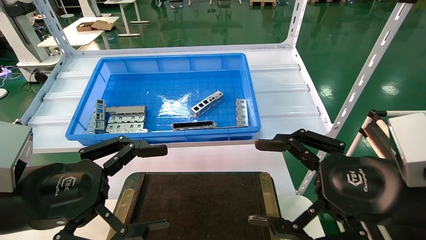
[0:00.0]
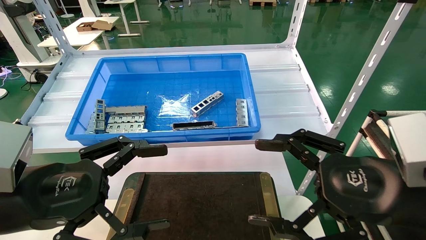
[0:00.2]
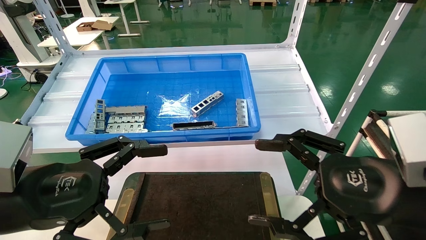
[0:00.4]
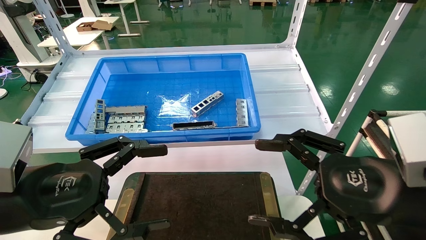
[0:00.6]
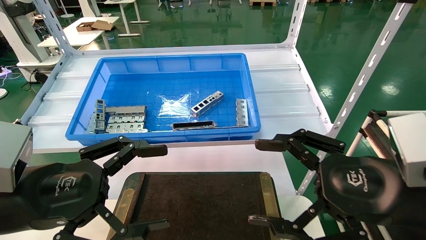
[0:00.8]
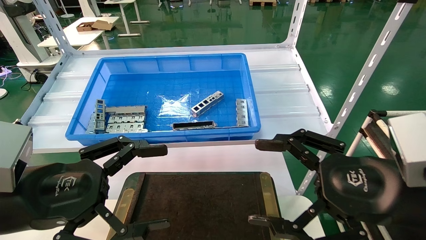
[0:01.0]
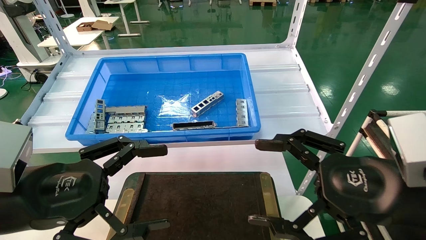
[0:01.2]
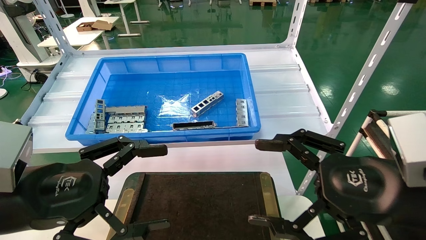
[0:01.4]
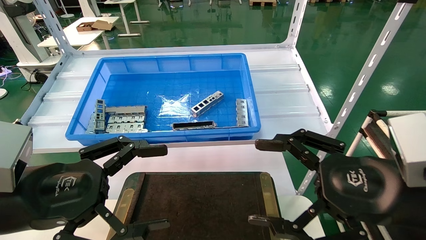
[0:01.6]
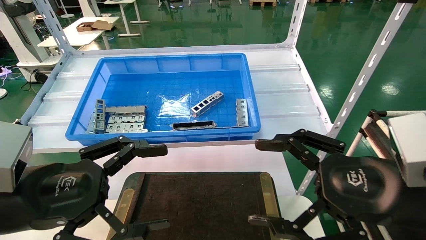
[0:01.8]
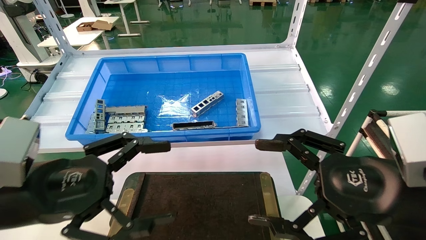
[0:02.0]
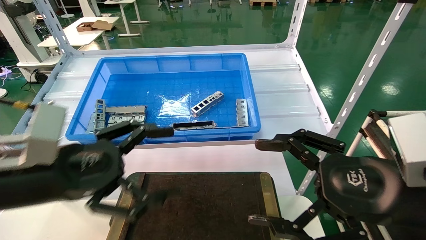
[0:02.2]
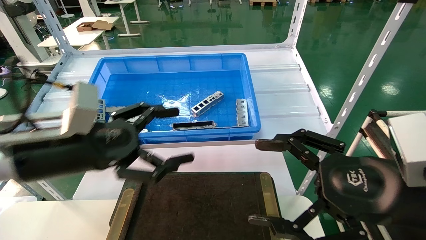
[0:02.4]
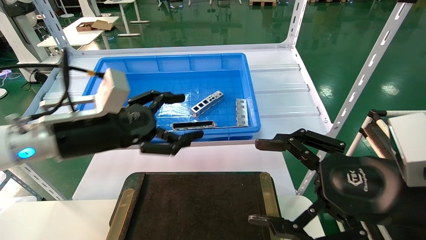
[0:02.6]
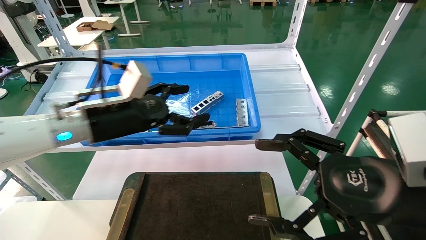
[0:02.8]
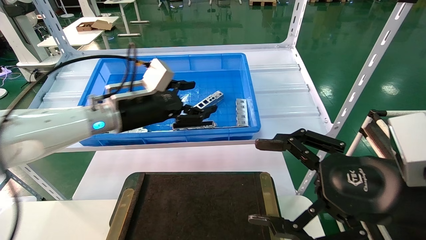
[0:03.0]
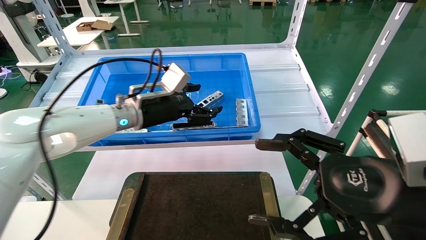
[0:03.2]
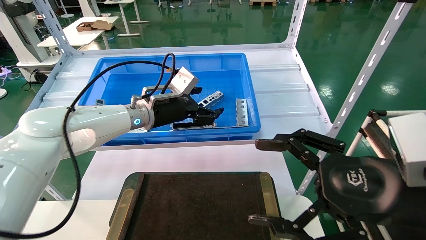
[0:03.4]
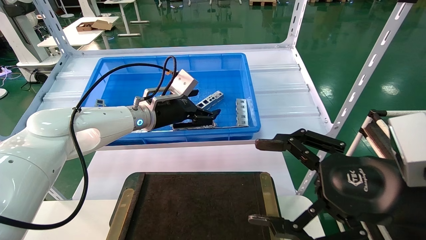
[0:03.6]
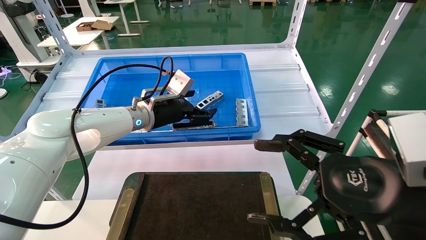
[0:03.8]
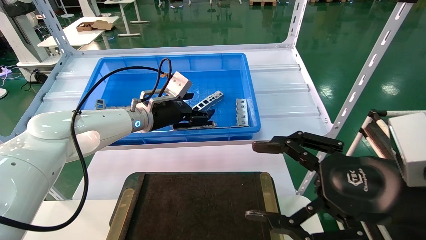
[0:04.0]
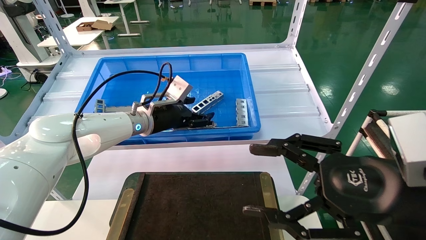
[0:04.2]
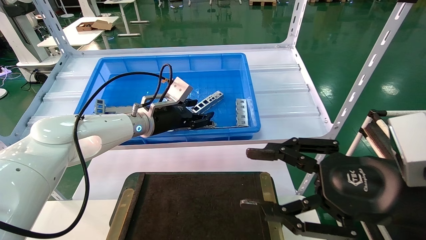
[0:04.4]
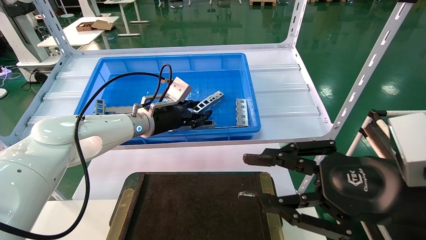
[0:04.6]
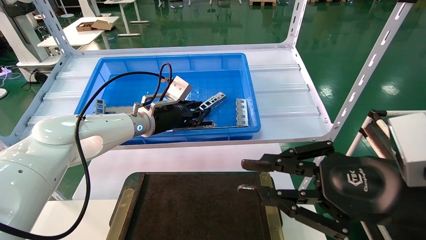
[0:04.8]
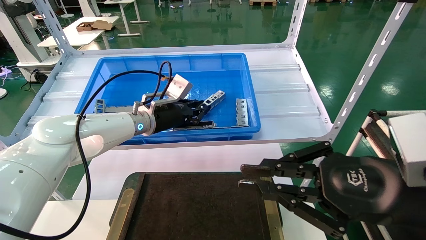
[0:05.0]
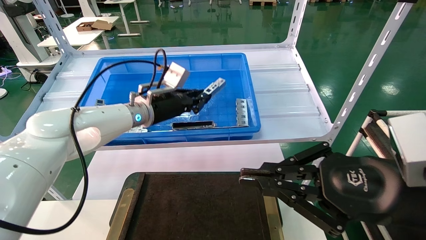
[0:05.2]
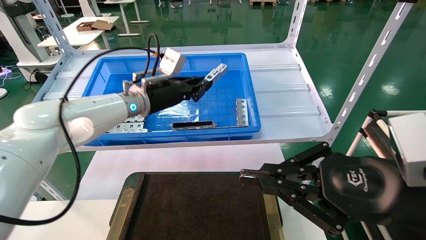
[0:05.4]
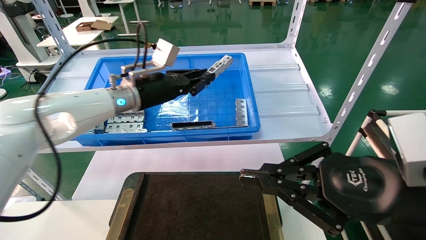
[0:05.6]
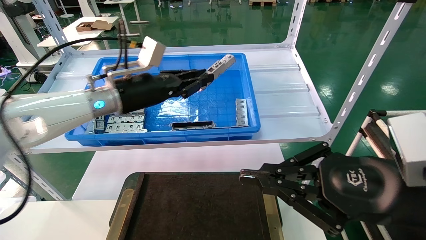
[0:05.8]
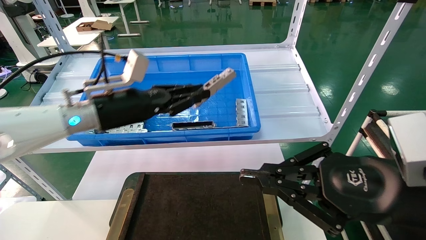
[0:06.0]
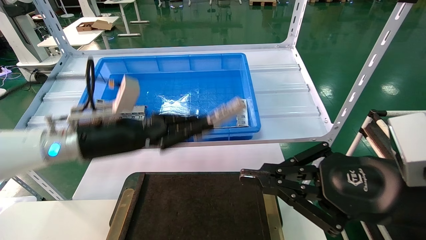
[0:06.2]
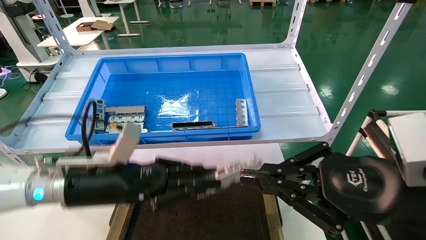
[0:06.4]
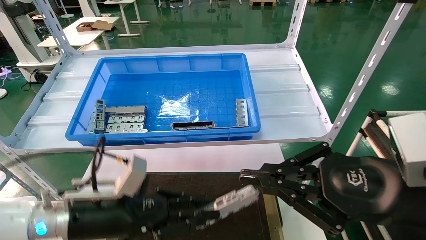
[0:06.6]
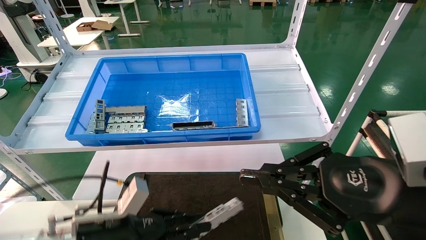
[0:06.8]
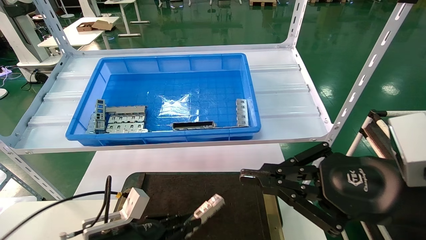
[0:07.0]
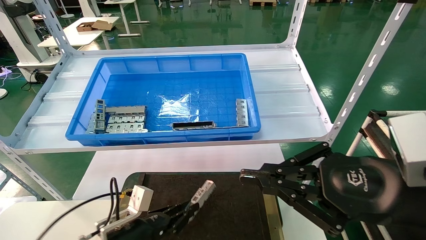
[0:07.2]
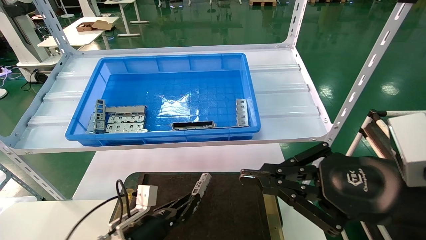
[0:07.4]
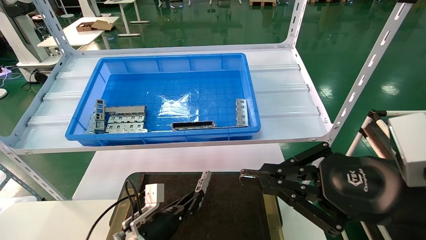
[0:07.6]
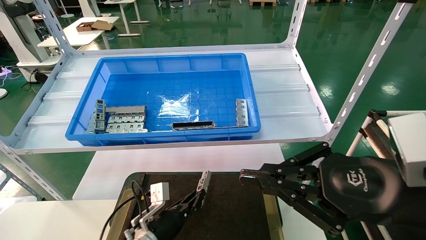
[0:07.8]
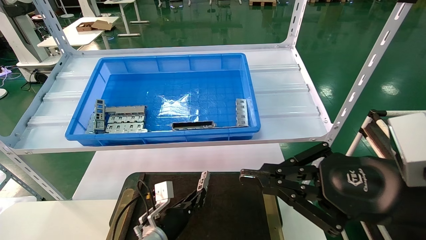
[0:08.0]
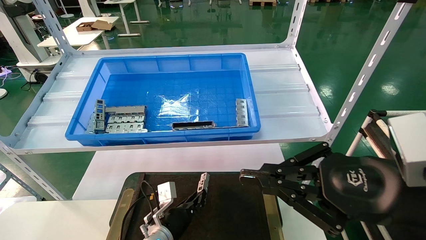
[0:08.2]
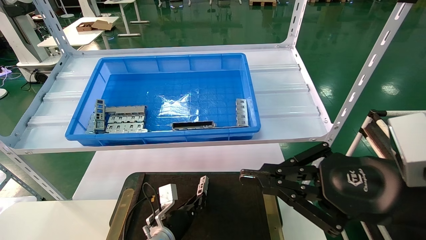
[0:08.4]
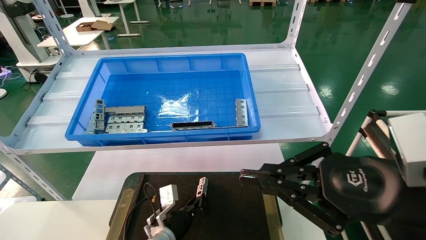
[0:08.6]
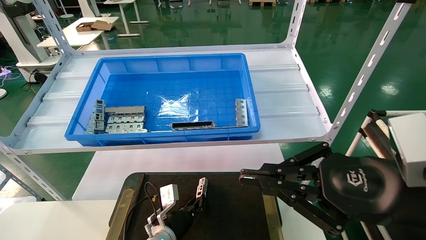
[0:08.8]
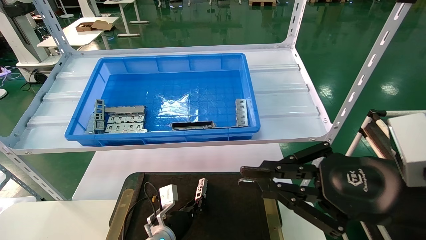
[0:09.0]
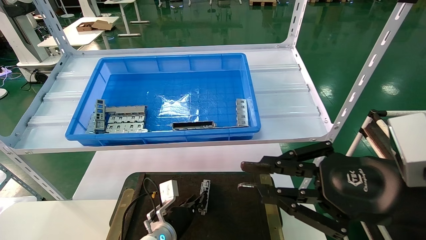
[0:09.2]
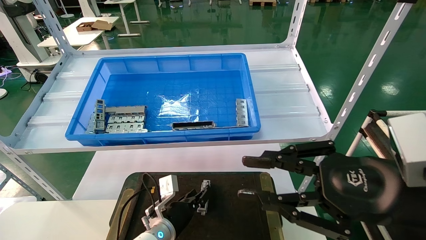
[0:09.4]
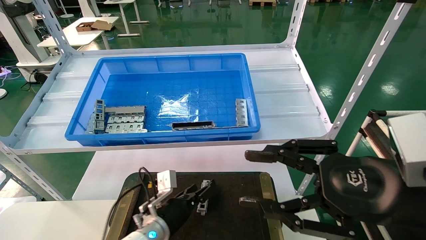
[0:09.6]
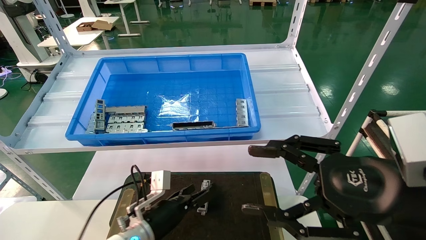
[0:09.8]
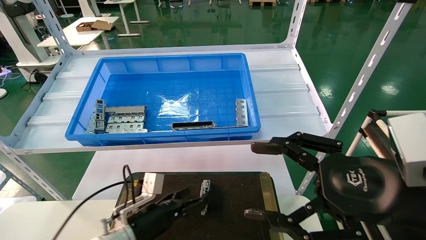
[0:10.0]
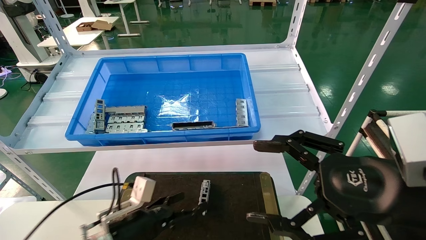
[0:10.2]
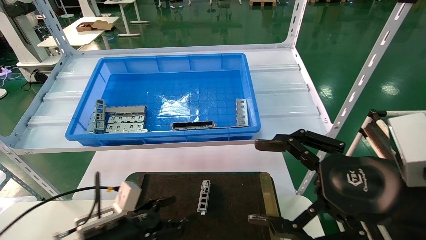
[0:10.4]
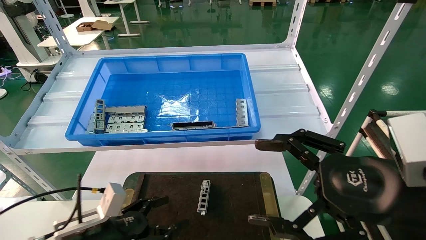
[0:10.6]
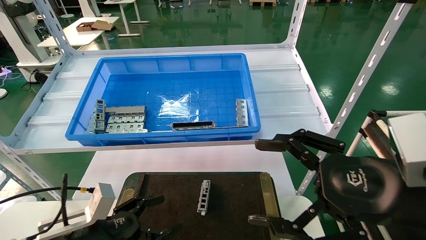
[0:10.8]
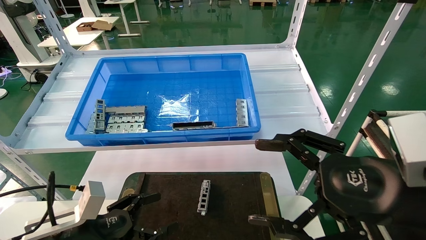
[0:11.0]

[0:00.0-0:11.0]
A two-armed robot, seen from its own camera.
Task of the whole recording: Grasp the part with one hand and place it on the black container.
Step, 0:02.2 to 0:05.4: Pick up the front USB bracket from the feeding area.
Step, 0:05.6 to 0:09.2: Place the front USB bracket into the box.
0:00.0 to 0:01.6: Both grippers stay about where they are.
0:01.6 to 0:03.2: The left gripper goes approximately 25 cm forward.
0:03.2 to 0:04.8: The left gripper ends up some 5 cm from where it was, and closes its fingers; the right gripper closes.
0:04.8 to 0:06.2: The left gripper moves backward and to the left, about 15 cm; the right gripper closes up.
0:06.2 to 0:07.8: The left gripper goes some 25 cm downward.
0:07.8 to 0:09.4: There are only small adjustments of the grippers.
0:09.4 to 0:11.0: The left gripper travels to the left, backward and upward by about 25 cm, and opens. The right gripper opens.
